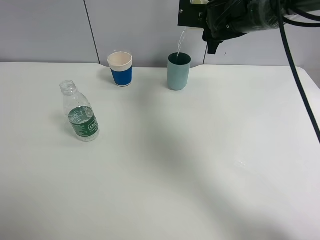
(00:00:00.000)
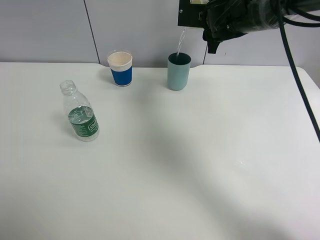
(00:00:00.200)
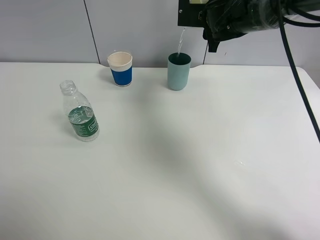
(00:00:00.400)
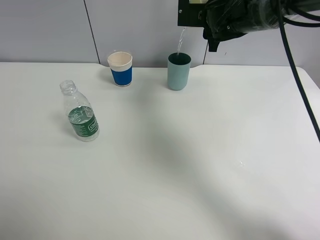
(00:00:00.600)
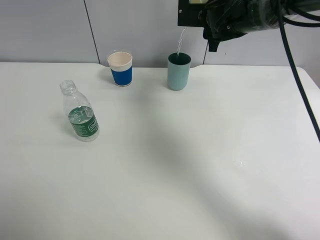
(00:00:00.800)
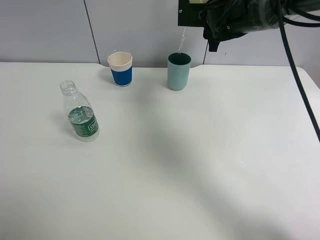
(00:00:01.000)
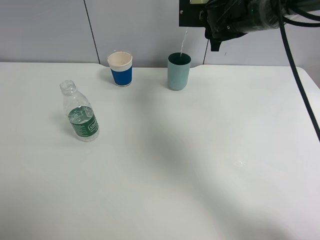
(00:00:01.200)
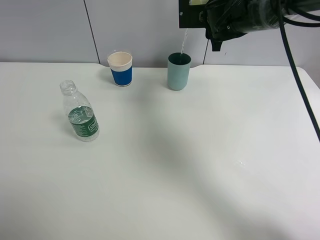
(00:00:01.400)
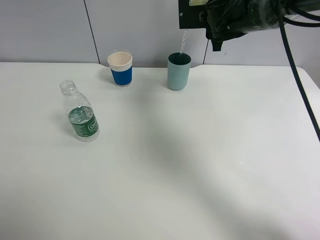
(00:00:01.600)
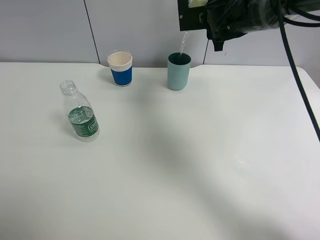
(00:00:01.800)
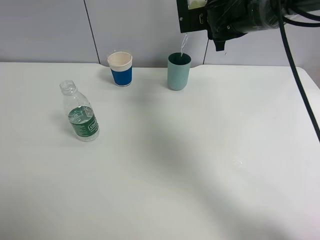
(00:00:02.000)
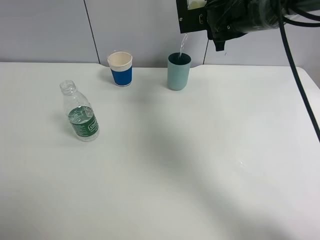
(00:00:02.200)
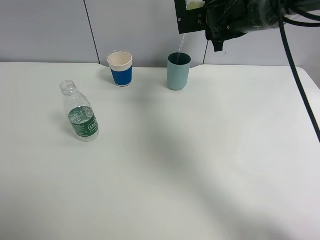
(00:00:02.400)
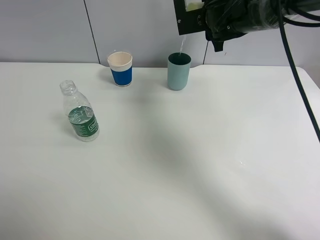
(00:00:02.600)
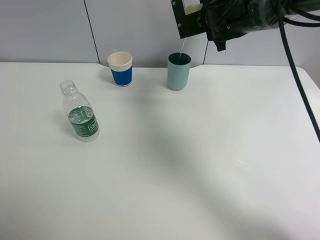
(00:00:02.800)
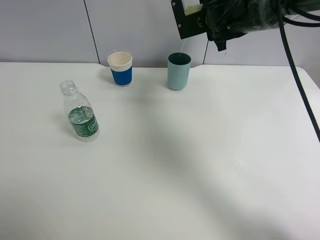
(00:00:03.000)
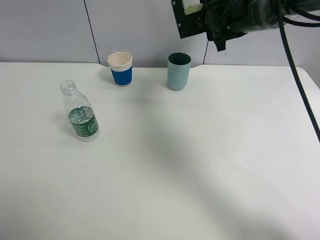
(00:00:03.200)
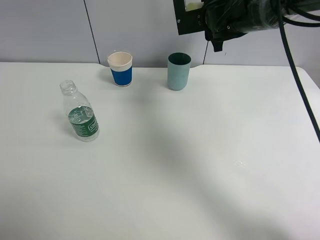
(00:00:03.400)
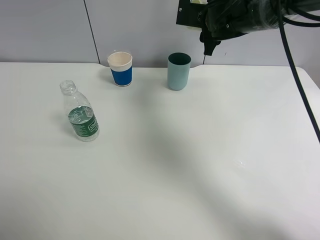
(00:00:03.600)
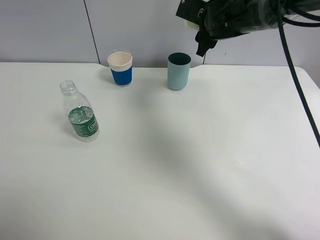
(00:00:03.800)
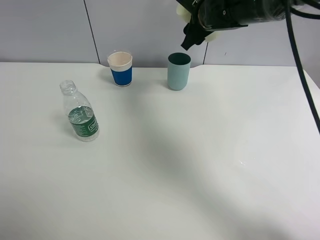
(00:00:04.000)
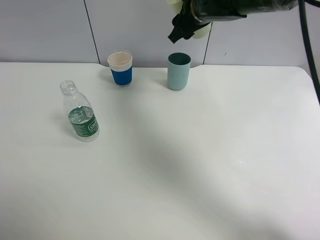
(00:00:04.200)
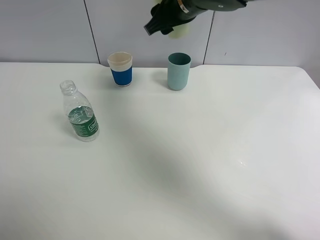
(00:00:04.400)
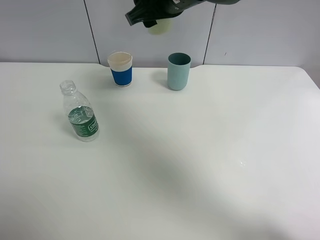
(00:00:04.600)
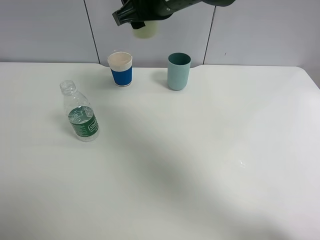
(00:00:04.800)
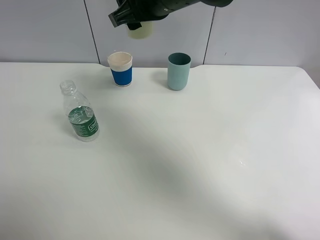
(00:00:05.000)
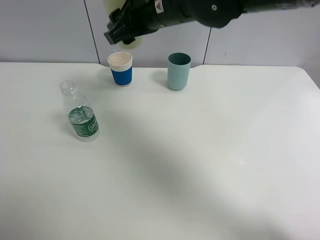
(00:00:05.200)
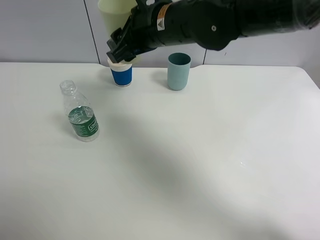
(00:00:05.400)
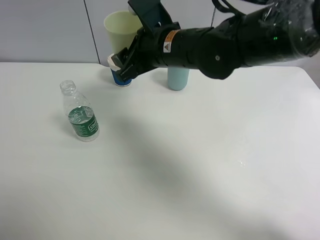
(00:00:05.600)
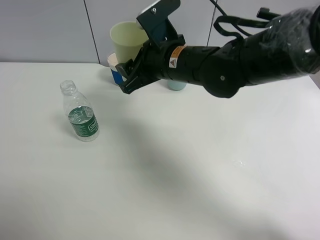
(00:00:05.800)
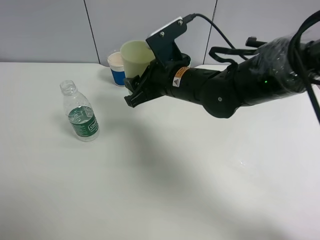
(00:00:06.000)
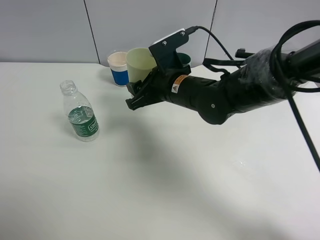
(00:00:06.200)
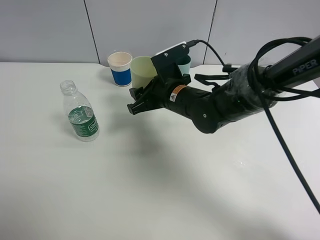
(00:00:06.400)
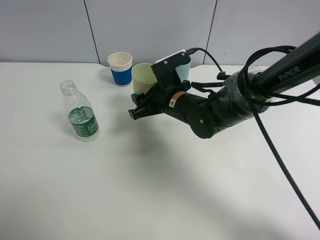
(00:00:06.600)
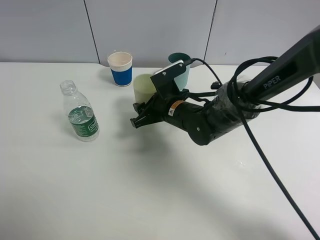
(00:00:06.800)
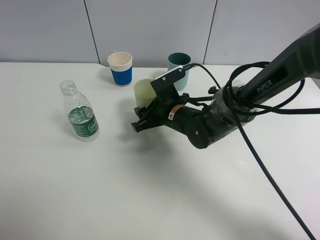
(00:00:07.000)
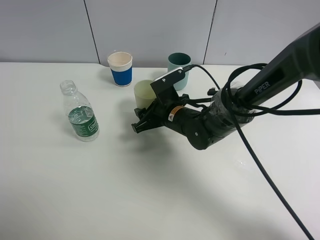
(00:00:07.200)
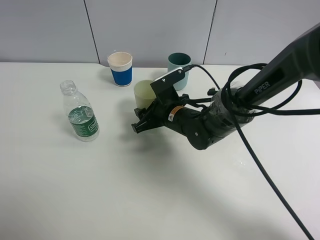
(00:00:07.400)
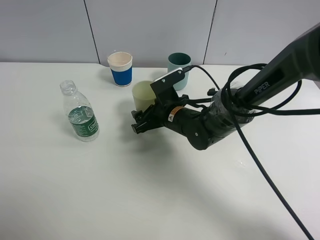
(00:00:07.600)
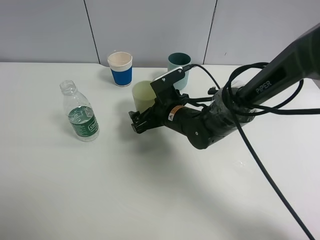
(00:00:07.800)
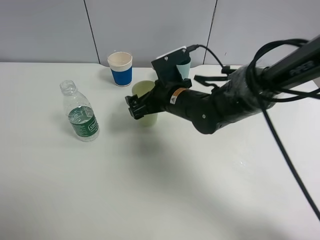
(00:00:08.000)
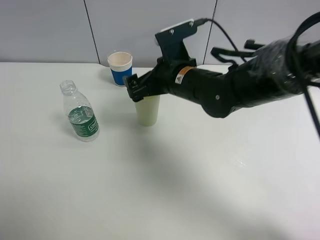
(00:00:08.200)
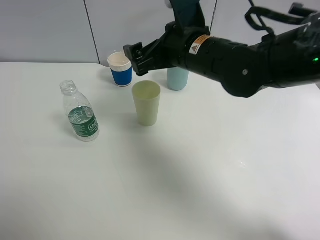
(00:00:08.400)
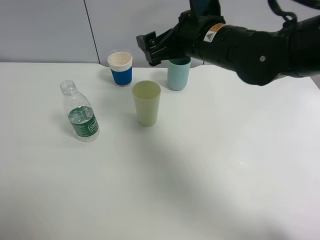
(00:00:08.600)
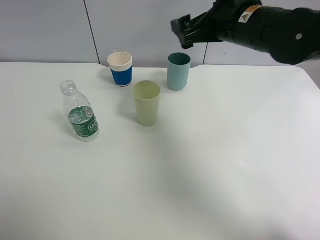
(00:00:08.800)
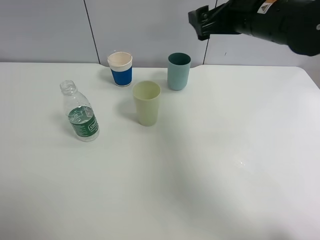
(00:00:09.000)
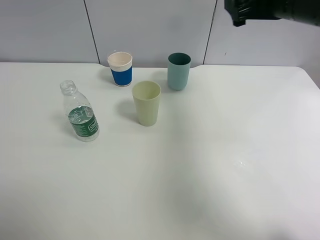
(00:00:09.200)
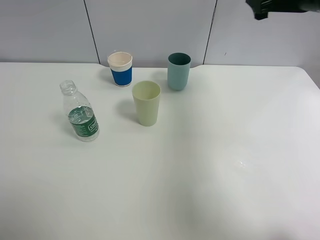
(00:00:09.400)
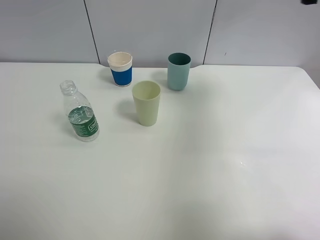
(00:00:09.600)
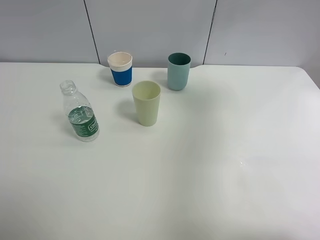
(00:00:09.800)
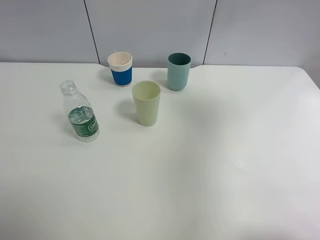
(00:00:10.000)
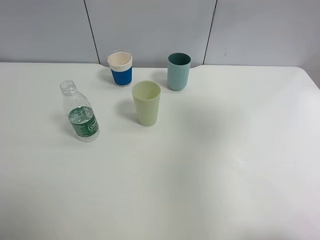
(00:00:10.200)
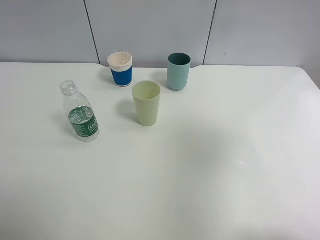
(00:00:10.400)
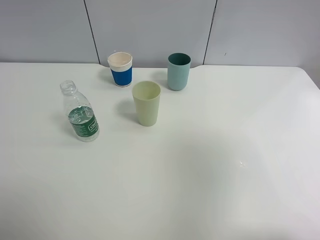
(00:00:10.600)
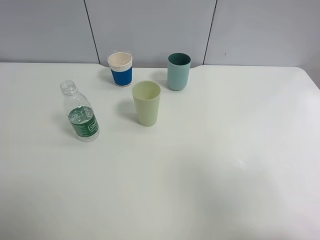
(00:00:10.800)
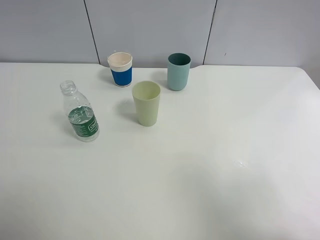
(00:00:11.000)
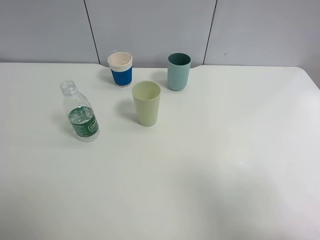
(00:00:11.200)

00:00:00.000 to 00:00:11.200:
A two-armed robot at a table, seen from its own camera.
Task of the whole recording: use a clamp to hold the bottle of the drink, pour the beverage into a random cup, then clamp the cup containing the drink and pour the drink into another random cup.
Step, 00:00:03.600 to 00:00:07.600: Place the paper cup on the table with right gripper.
00:00:00.000 to 00:00:01.600: The grippers make only small movements.
00:00:01.600 to 00:00:03.200: The grippers make only small movements.
00:00:03.200 to 00:00:04.800: The right gripper is displaced backward, to the left and upward by some 15 cm.
00:00:04.800 to 00:00:06.400: The right gripper heads downward, covering approximately 20 cm.
00:00:06.400 to 00:00:08.000: The right gripper opens.
00:00:08.000 to 00:00:09.600: The right gripper moves to the right and upward, approximately 35 cm.
00:00:09.600 to 00:00:11.200: The right gripper moves backward, roughly 30 cm.

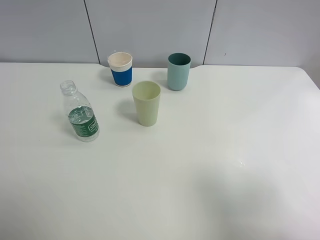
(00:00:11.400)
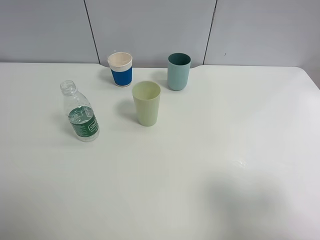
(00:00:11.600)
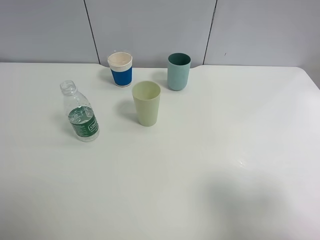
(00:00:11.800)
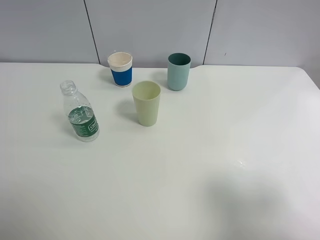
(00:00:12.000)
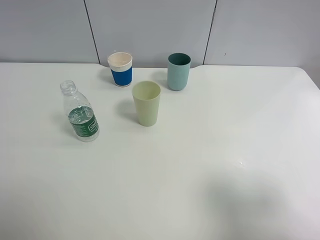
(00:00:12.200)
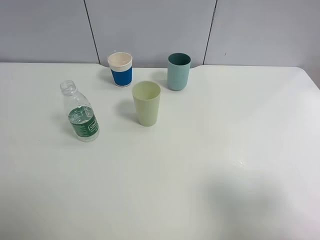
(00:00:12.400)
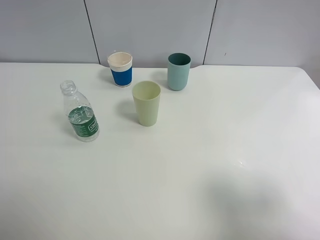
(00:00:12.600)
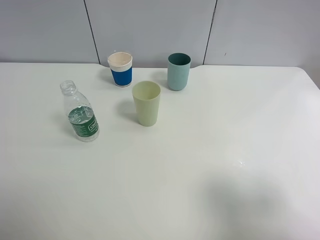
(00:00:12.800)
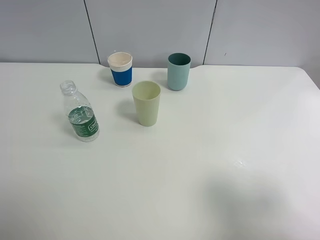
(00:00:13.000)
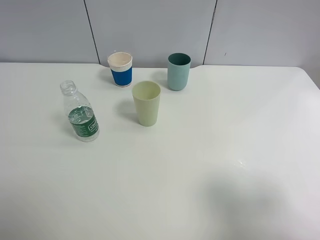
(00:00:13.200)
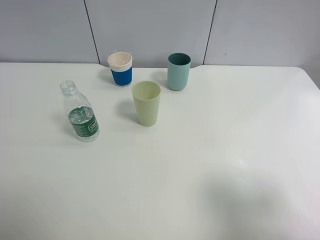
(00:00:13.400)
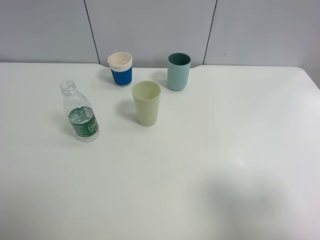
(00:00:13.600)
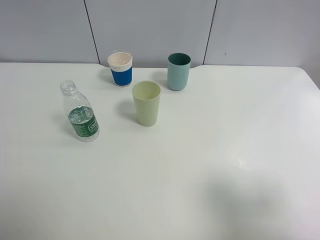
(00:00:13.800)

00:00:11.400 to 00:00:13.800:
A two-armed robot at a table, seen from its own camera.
Task of the whole recording: use a clamp to hold the bottle of the drink, pour the beverage into a random cup, then clamp the cup containing the drink and pour the drink into another random cup.
00:00:12.600 to 00:00:13.800: Both grippers stay about where they are.
